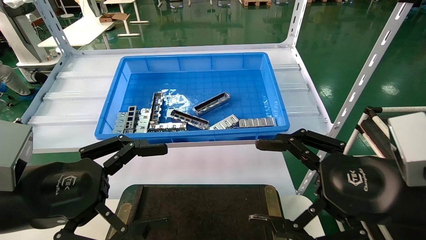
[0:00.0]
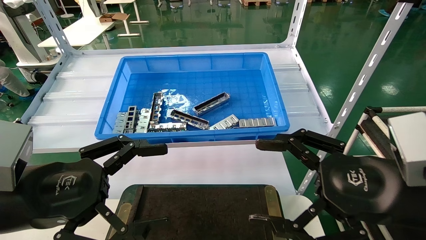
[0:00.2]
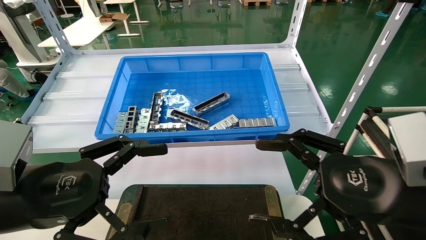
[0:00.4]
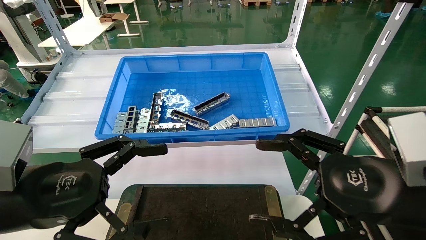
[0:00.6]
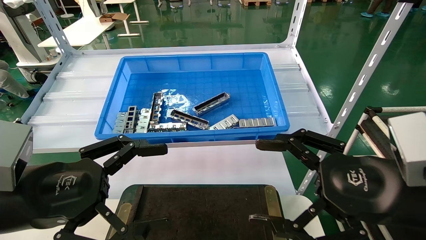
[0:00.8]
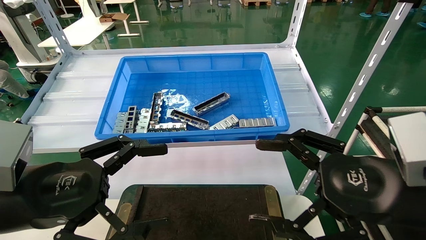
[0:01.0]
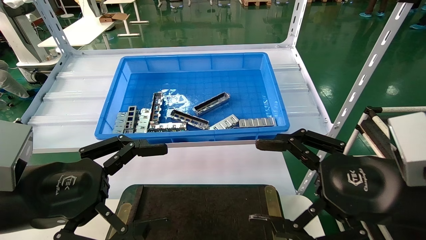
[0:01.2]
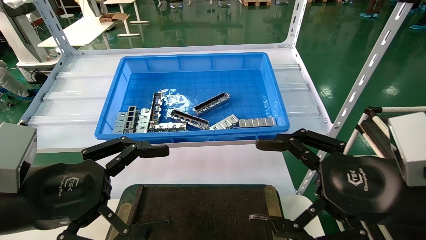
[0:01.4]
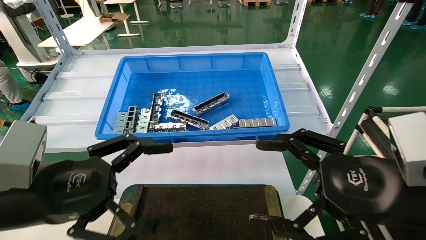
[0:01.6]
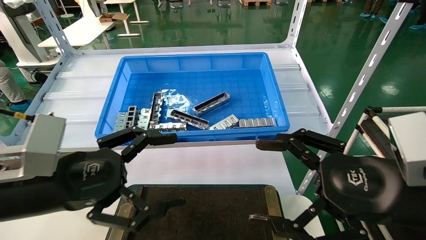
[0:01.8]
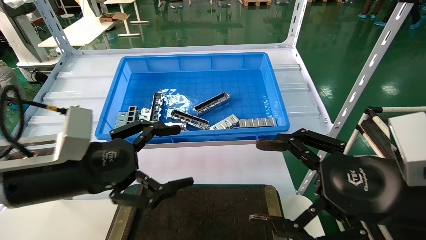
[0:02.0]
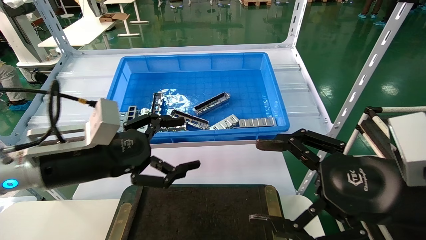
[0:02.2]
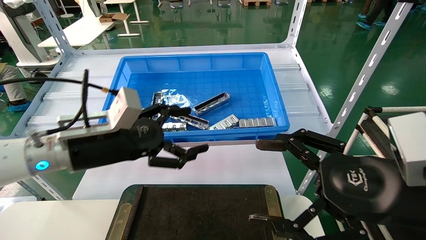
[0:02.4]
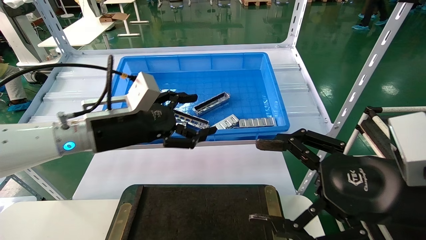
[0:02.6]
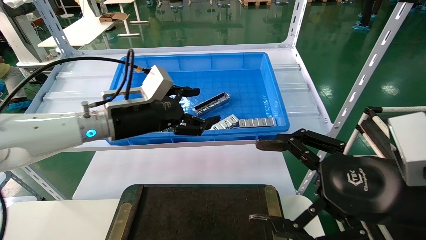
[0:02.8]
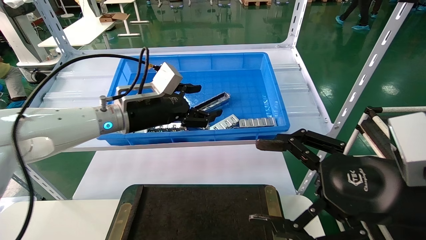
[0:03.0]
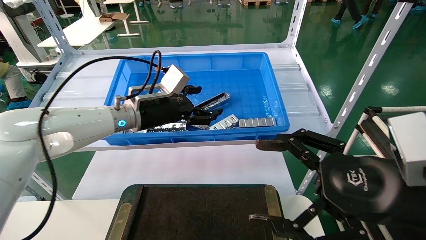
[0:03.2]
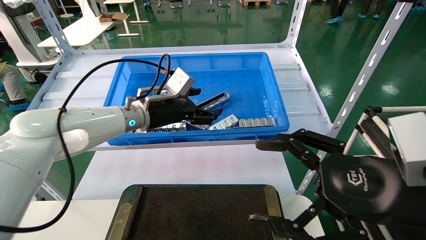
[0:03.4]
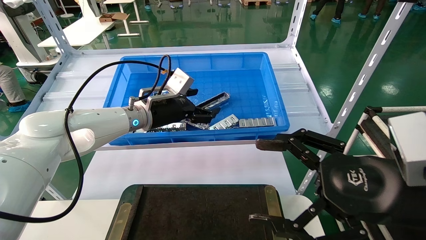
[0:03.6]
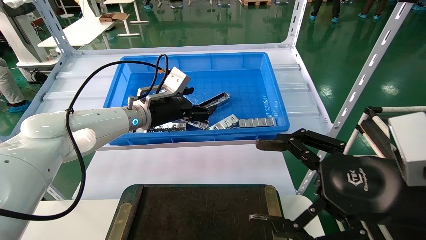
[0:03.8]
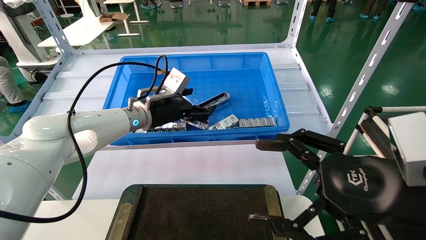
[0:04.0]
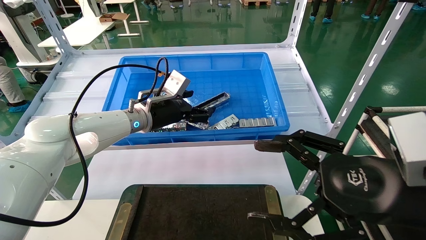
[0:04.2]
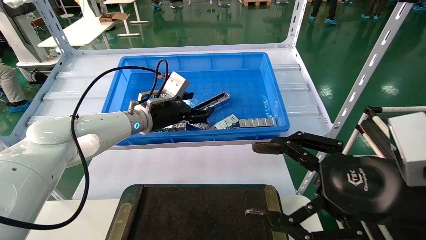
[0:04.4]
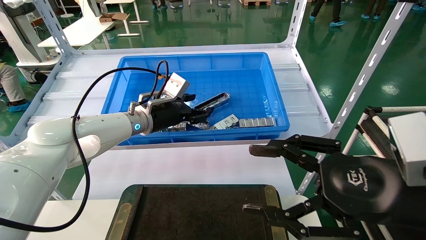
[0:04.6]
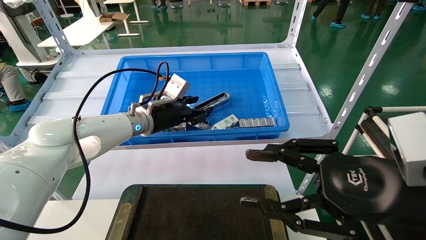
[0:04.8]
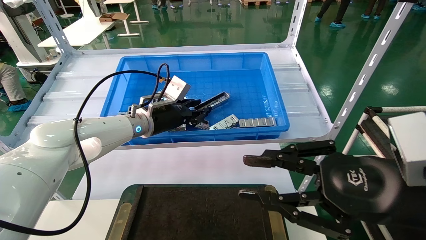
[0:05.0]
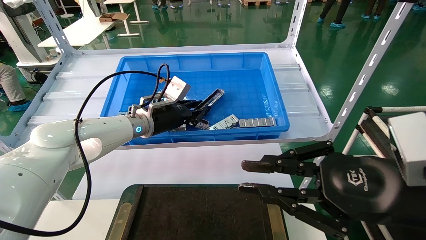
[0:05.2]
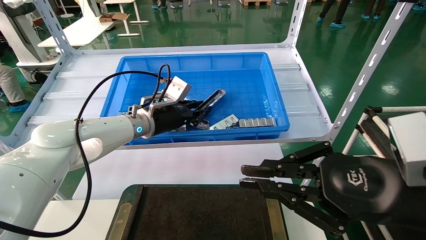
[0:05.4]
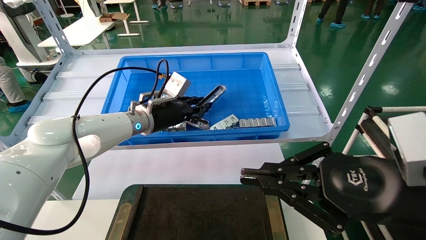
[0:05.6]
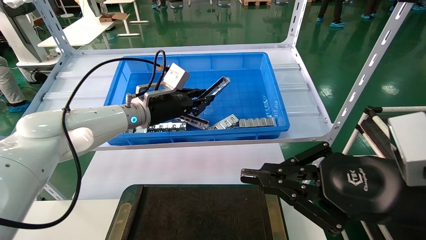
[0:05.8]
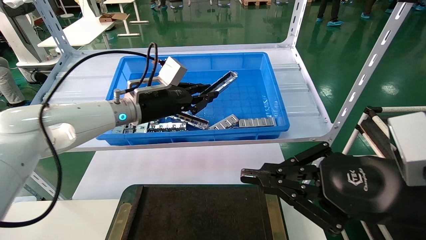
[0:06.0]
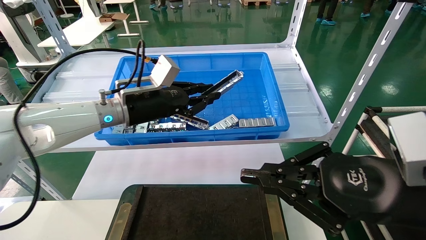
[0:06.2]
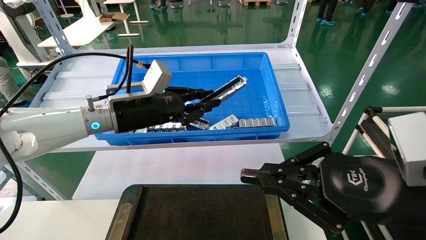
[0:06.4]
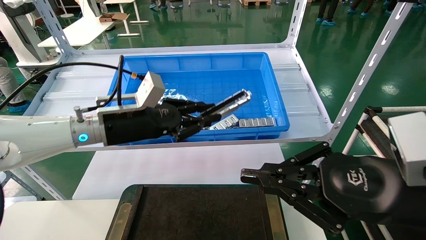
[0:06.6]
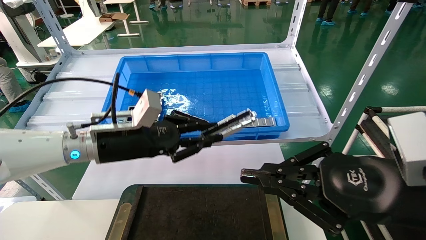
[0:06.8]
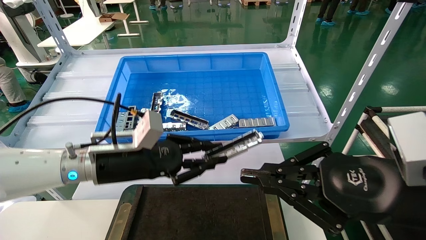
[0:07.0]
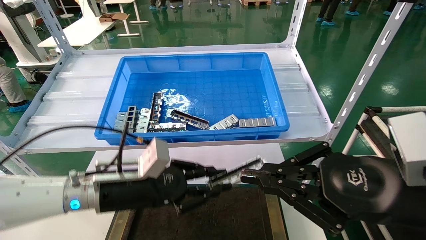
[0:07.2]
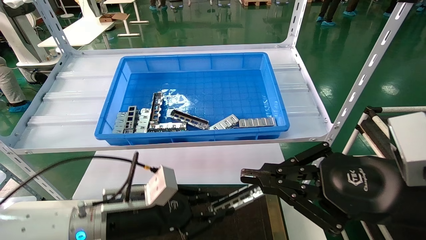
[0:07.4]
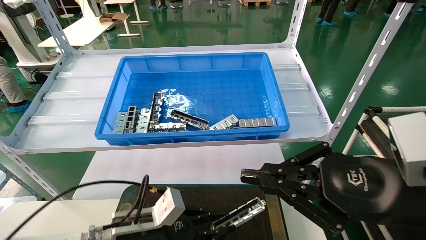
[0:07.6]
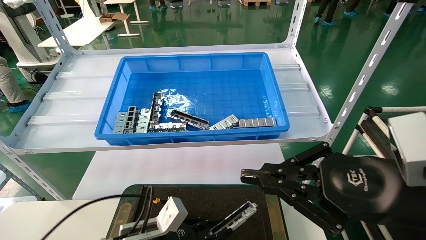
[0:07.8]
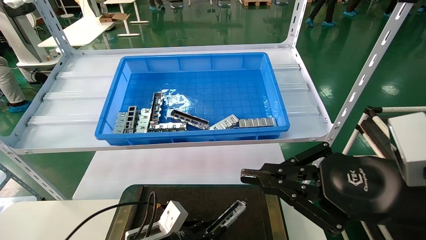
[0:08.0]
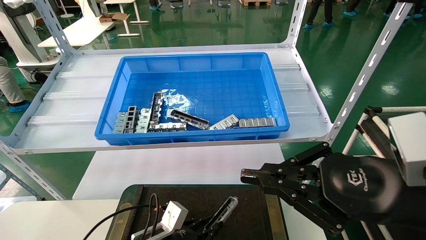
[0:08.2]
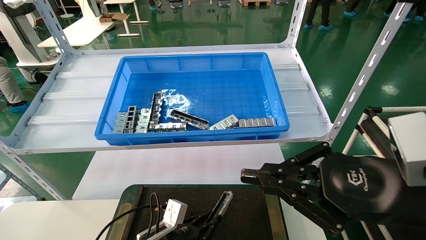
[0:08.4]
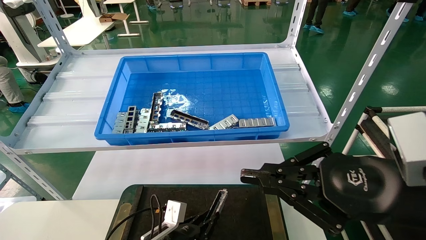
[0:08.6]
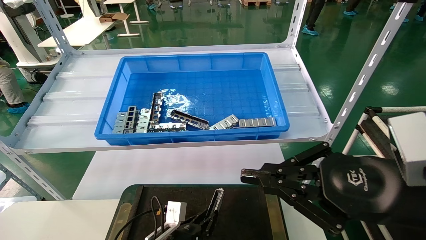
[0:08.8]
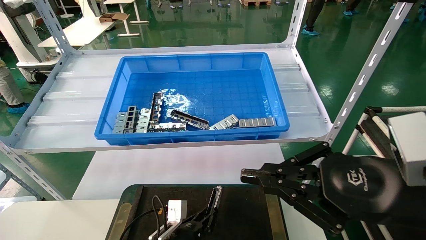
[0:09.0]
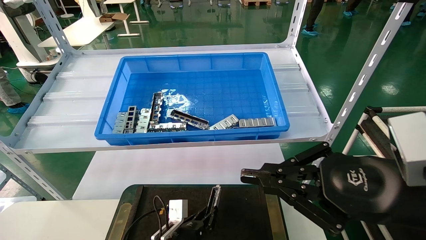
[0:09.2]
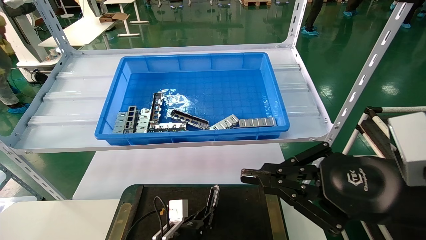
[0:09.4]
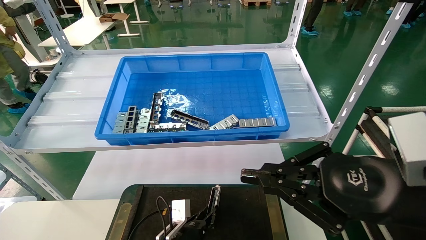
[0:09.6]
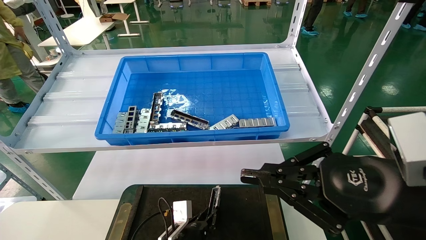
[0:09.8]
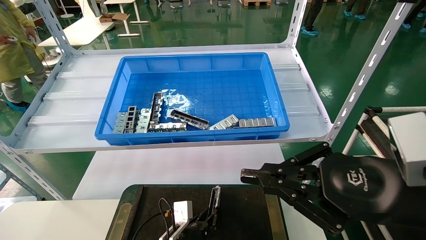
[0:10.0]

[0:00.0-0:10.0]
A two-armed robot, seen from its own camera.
Task of the whole recording: Grasp the part with one hand and place it on the black container.
Step, 0:01.6 to 0:05.0: Pick up the front USB bracket from the feeding area.
0:00.0 to 0:01.4: Neither gripper changes place.
0:01.4 to 0:02.8: The left gripper heads forward, covering roughly 20 cm.
0:02.8 to 0:04.2: The left gripper is displaced forward by approximately 10 cm.
0:04.2 to 0:05.8: The right gripper closes, while the left gripper closes its fingers.
0:05.8 to 0:07.2: The left gripper heads backward and downward, covering about 20 cm.
0:07.2 to 0:08.6: The left gripper shifts some 20 cm downward.
0:08.6 to 0:10.0: The left gripper ends up some 5 cm from where it was.

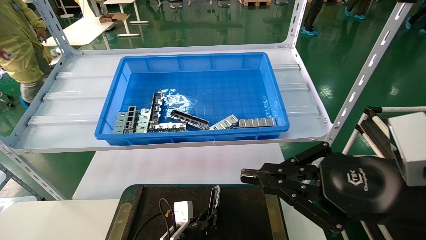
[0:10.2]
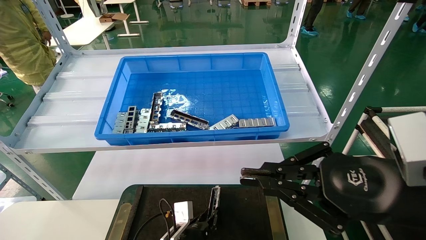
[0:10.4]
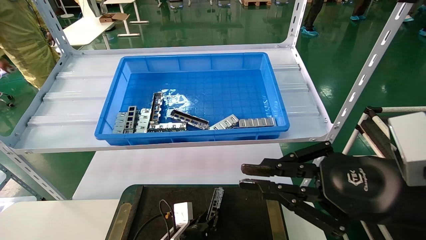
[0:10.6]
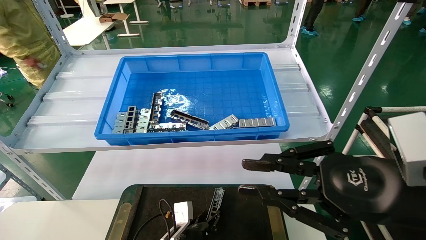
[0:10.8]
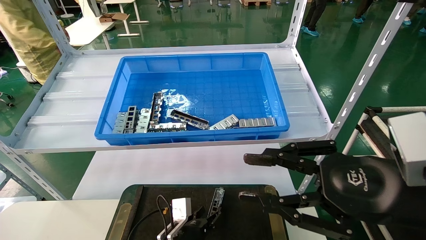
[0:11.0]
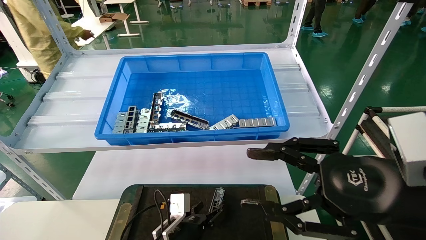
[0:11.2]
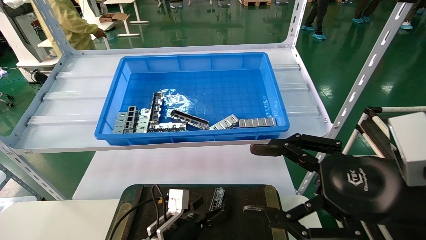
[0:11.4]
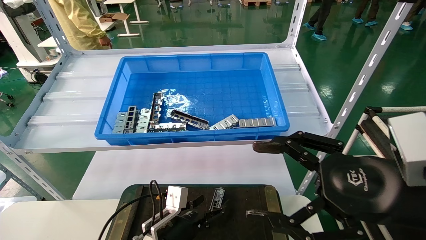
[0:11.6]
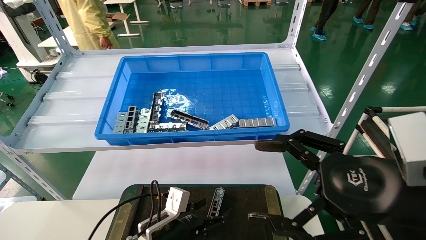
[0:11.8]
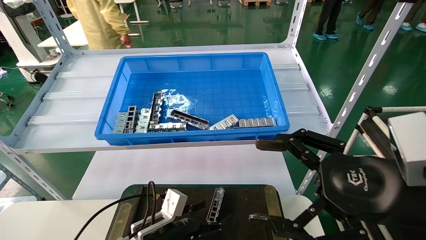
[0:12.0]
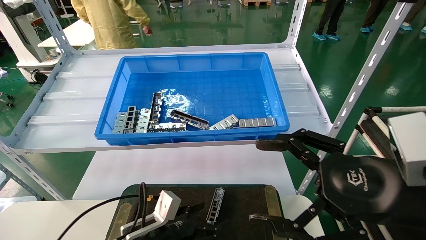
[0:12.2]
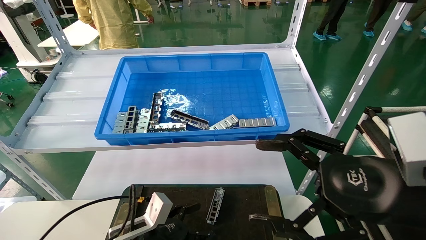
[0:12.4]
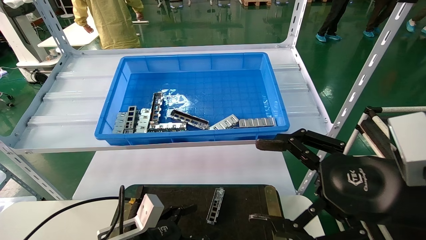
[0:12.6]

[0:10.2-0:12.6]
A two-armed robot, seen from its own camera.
Task of the whole recording: Grasp the part with one hand and place it on the black container.
0:10.2 to 0:11.4: The left gripper is displaced upward by roughly 5 cm, and opens its fingers. The right gripper opens.
0:11.4 to 0:12.6: The left gripper goes roughly 10 cm to the left, backward and upward. The right gripper opens up.

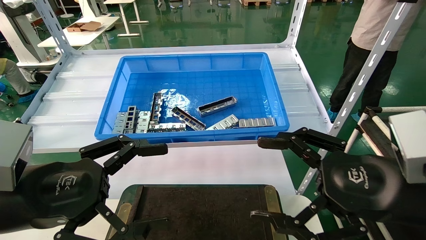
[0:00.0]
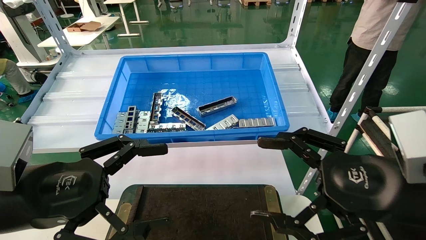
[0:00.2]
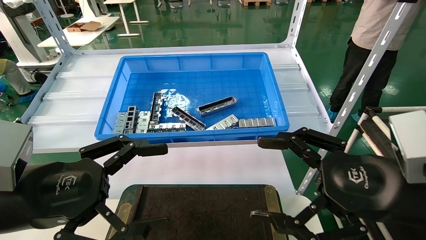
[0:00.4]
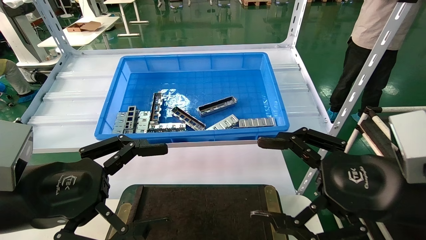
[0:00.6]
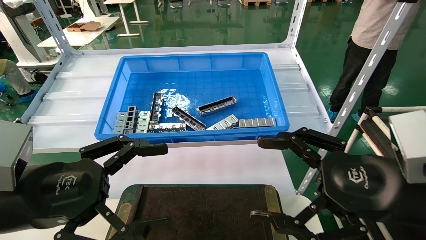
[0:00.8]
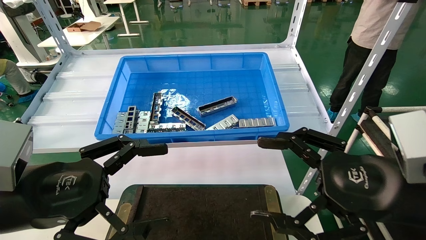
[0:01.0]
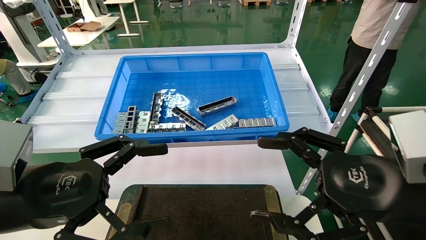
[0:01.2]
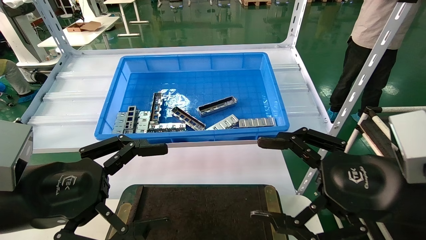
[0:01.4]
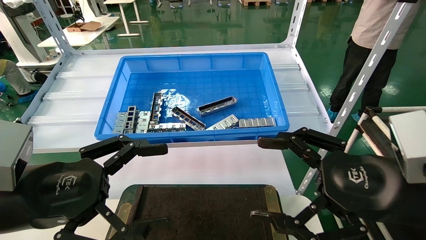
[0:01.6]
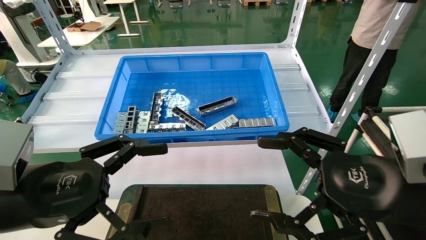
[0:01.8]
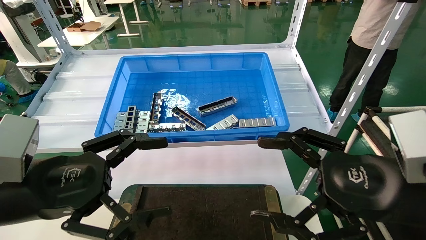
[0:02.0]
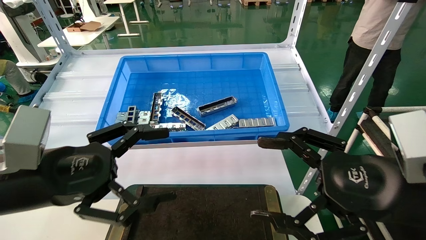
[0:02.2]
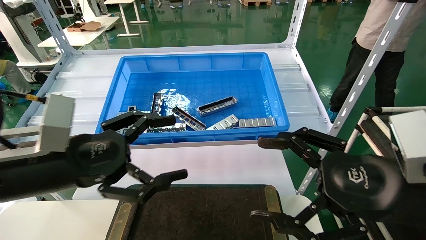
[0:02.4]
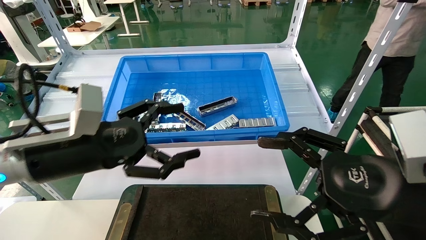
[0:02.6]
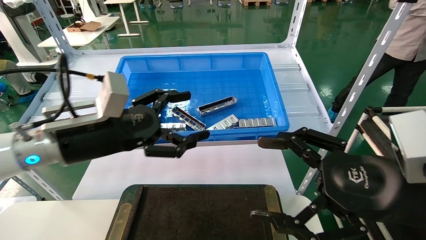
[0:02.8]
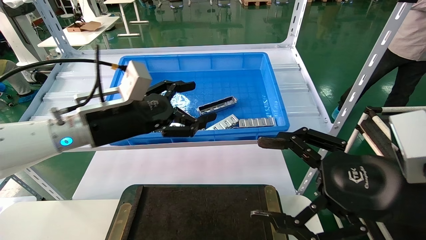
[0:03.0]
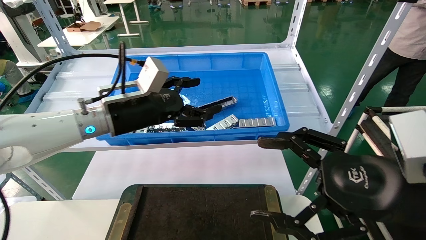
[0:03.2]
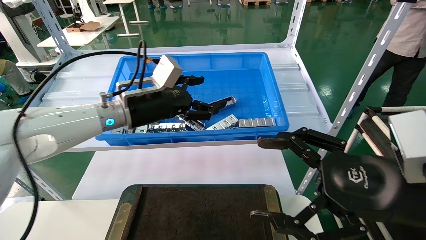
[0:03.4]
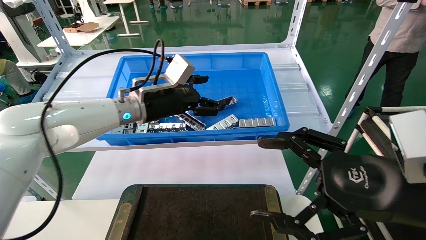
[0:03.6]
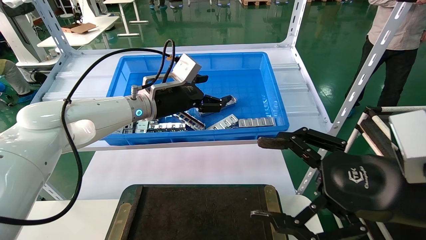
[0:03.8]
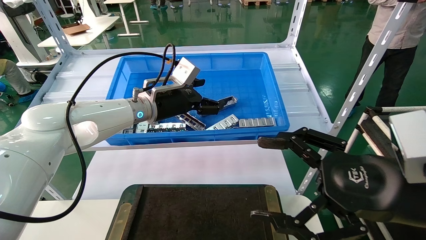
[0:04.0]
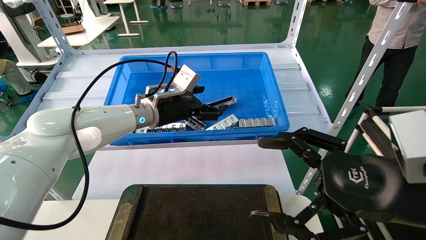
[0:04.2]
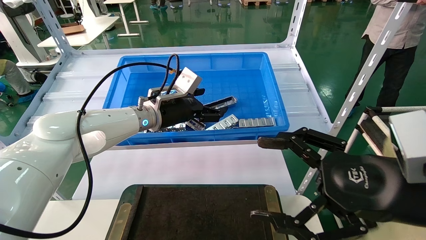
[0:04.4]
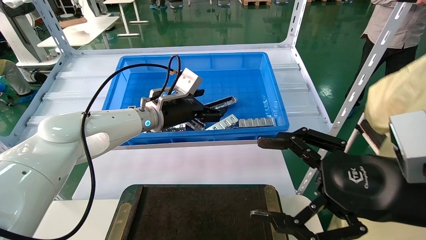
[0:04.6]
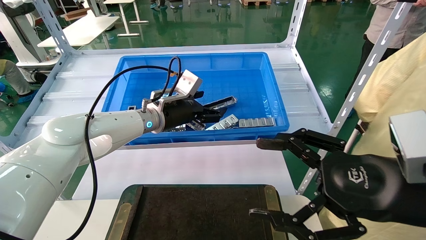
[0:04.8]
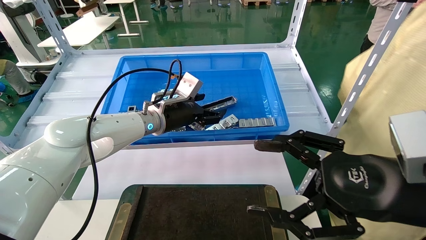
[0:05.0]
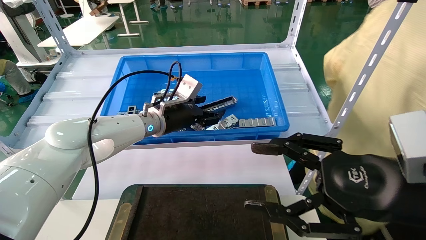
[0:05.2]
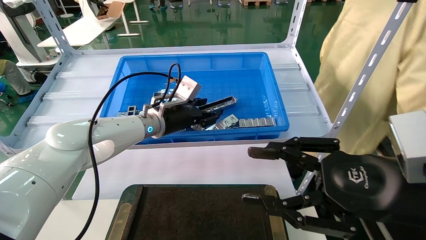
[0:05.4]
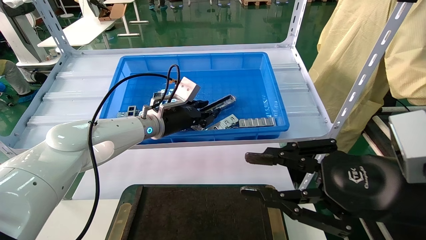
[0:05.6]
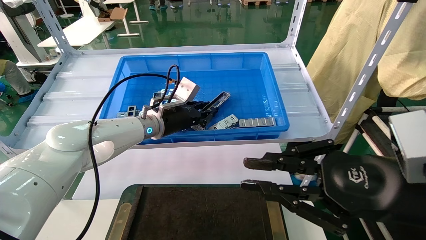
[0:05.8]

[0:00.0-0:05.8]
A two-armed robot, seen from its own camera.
Task of the whole recording: Grasp the part with one hand and place it on the black container.
Step, 0:02.0 to 0:05.6: Pick up the front USB bracket from the feeding area.
0:00.0 to 0:01.4: Both grippers stay put.
0:01.4 to 0:02.8: The left gripper is displaced forward by some 10 cm.
0:02.8 to 0:04.4: The left gripper moves forward and to the right, approximately 20 cm.
0:04.4 to 0:05.8: The left gripper closes; the right gripper closes its fingers.
